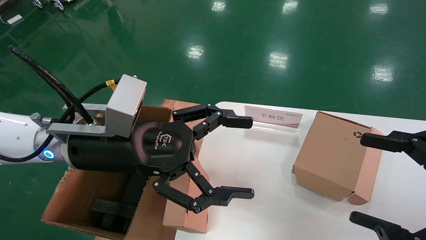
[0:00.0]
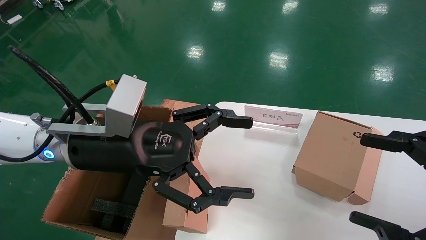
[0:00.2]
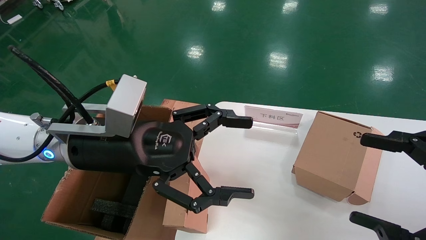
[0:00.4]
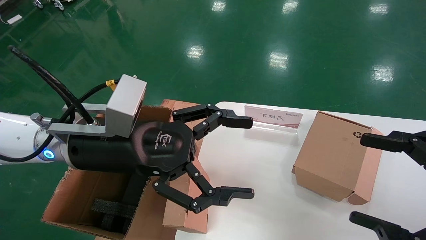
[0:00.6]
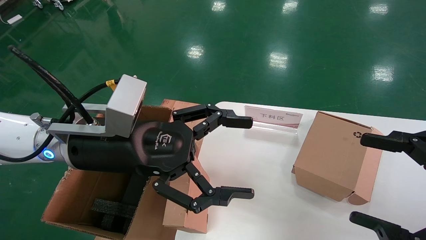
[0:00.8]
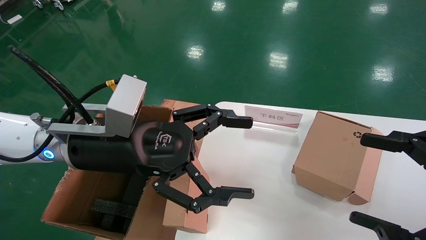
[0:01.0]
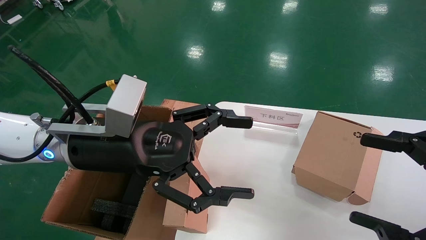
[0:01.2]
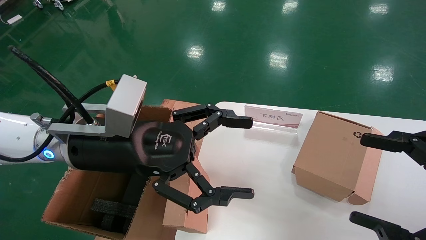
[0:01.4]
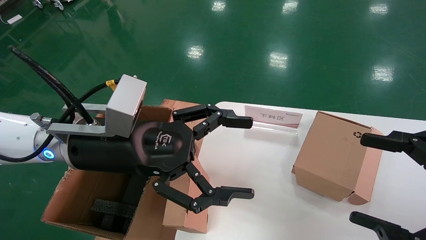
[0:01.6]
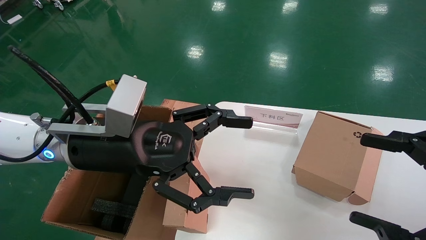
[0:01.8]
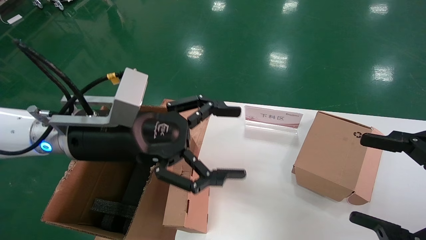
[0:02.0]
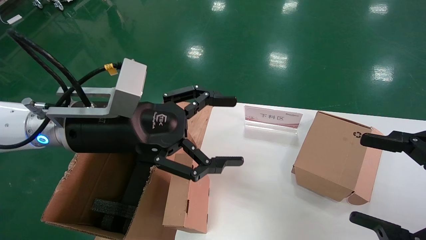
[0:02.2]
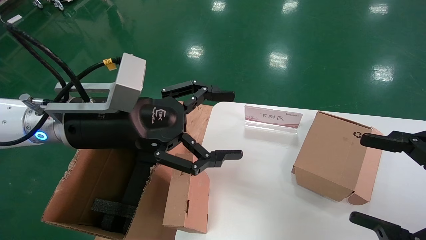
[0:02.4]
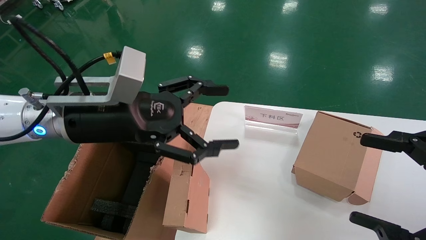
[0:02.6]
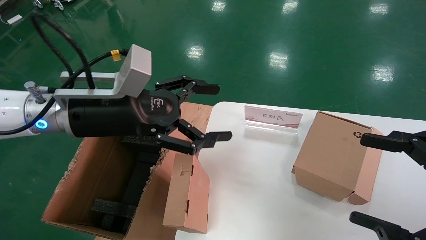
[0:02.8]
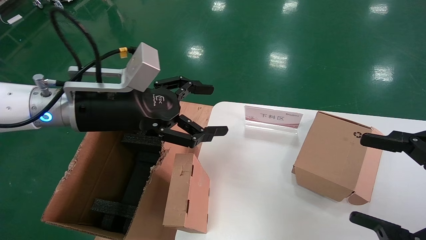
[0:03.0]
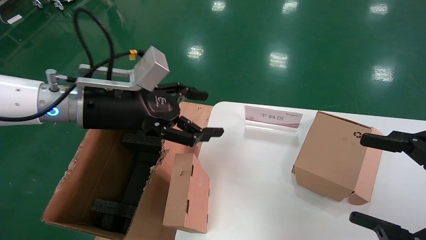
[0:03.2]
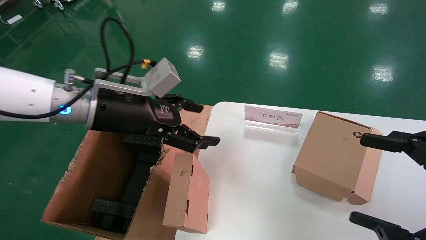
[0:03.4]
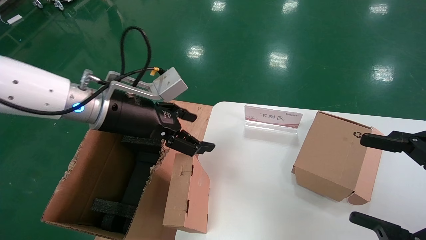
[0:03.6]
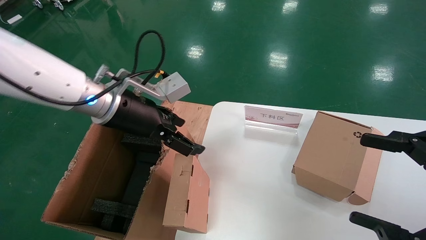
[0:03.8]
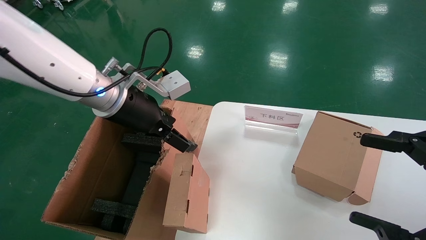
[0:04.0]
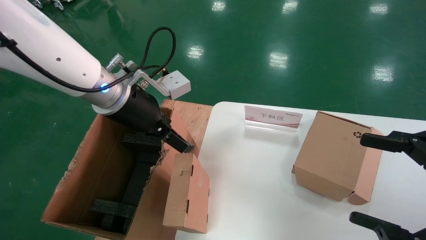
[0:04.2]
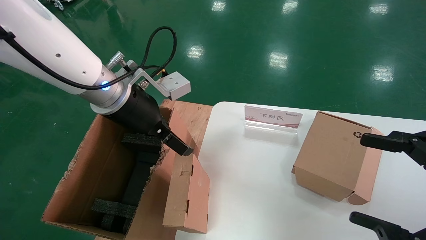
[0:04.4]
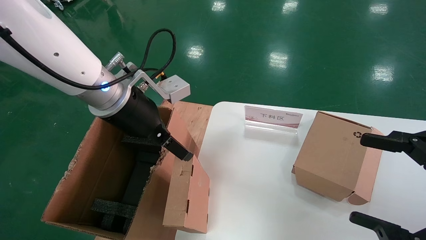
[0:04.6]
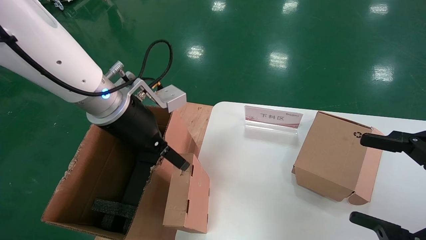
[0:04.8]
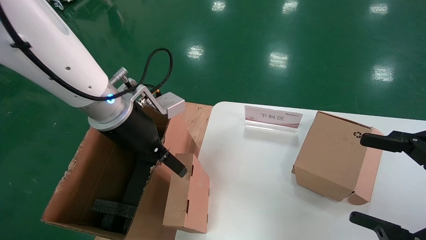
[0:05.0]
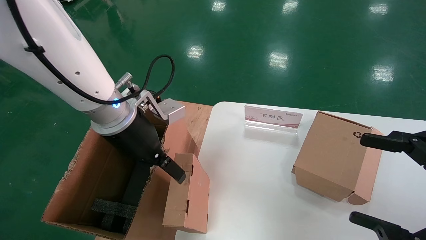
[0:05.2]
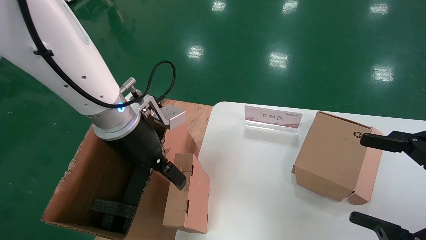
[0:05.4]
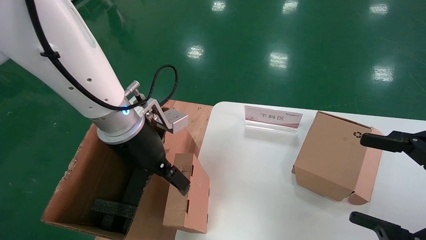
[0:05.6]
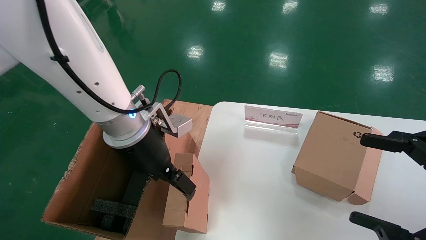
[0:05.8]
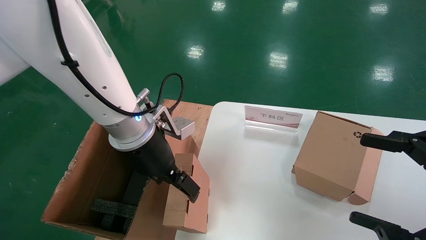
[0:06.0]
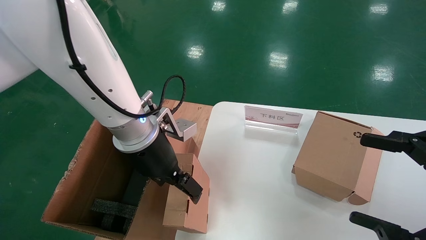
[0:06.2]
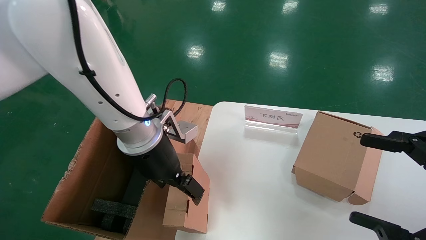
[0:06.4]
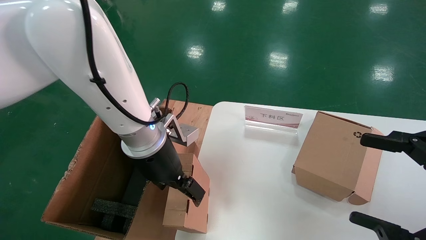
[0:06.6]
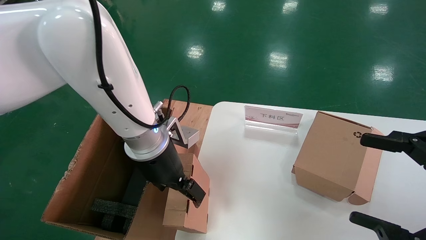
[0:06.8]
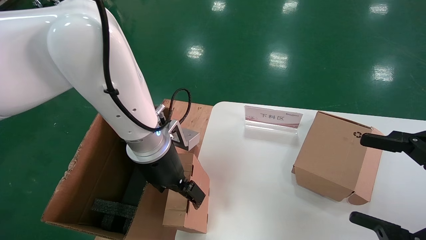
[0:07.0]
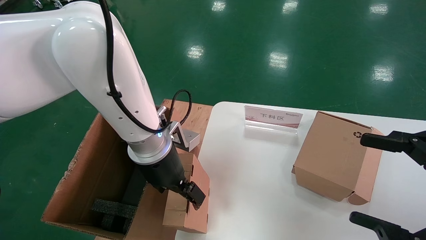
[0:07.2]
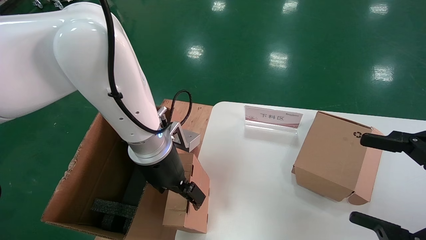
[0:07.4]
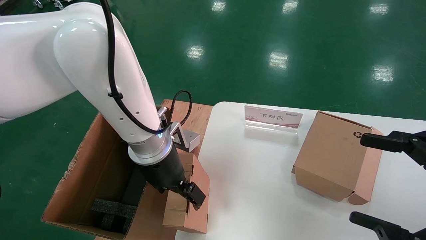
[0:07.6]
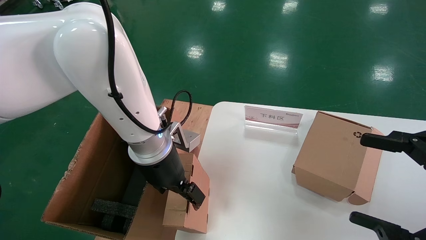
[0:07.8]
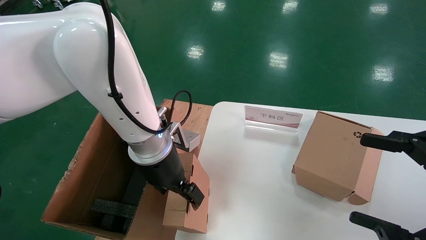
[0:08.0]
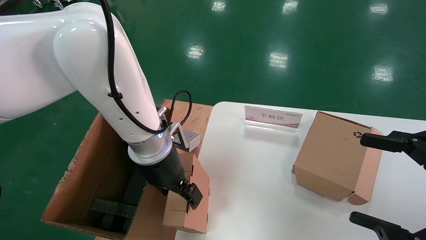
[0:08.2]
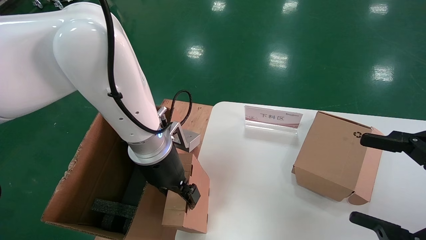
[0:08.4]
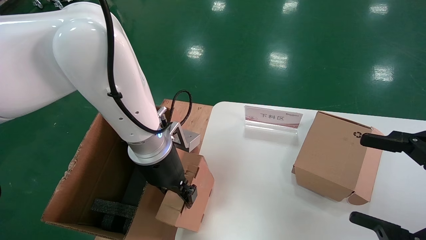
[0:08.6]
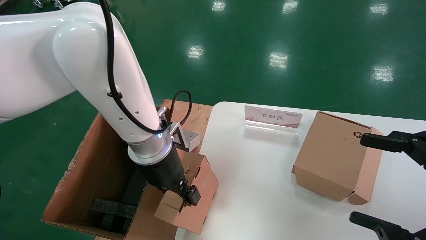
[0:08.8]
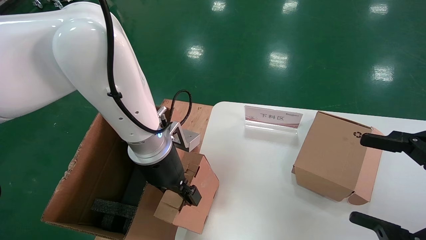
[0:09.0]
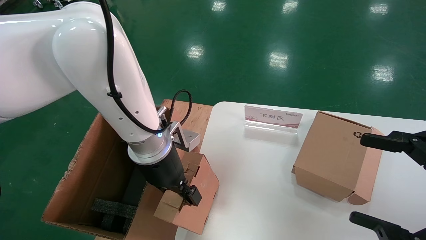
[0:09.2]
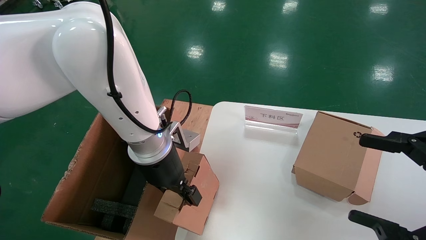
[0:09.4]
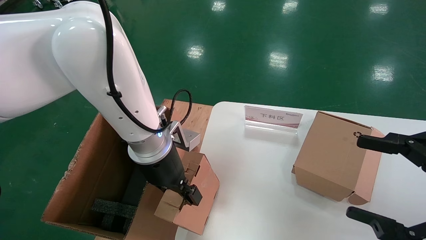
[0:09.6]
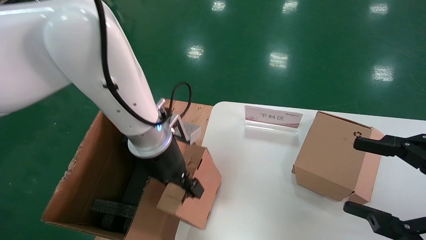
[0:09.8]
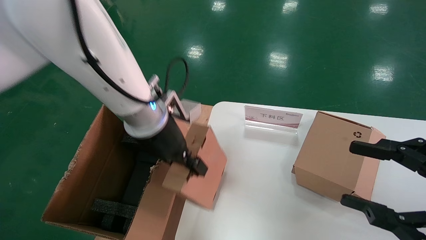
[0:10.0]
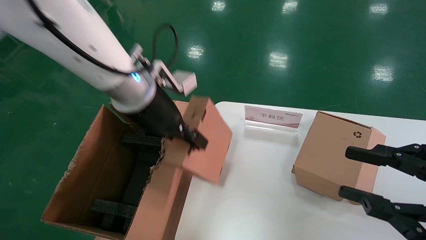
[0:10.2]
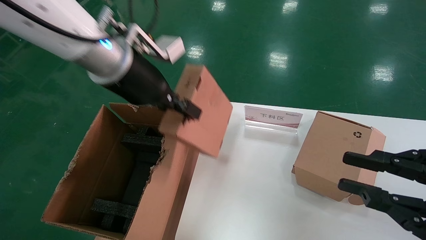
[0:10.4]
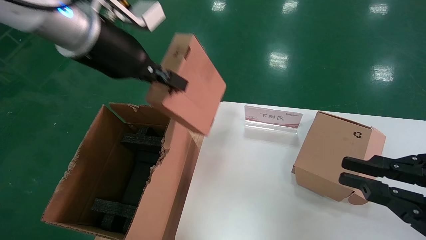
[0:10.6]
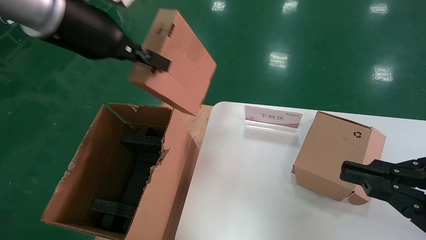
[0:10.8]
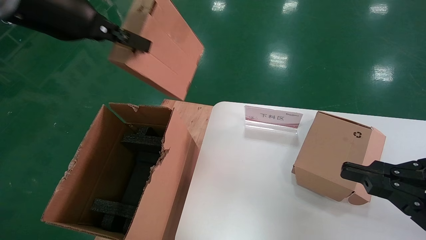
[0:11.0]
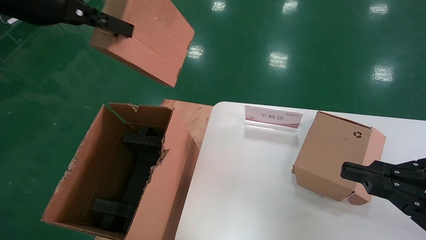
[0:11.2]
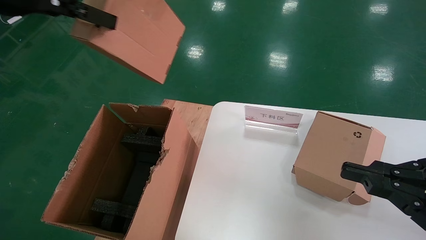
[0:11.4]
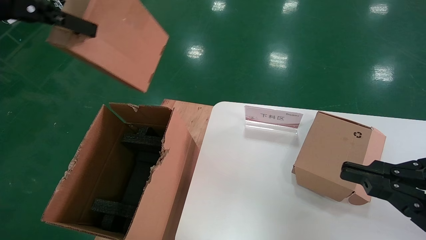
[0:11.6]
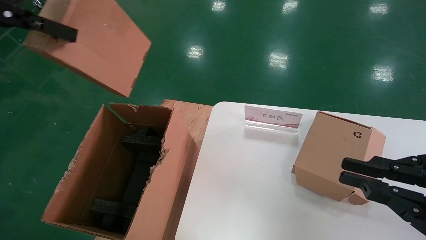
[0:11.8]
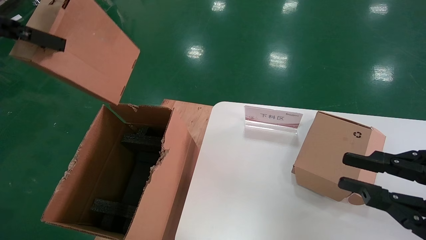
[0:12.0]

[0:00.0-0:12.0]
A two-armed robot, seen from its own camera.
Task of the whole recording: put the box on the table into the big box.
Step, 0:00.0 to 0:08.8: Grasp the paper box.
0:00.0 to 0:01.6: Neither gripper changes place.
0:01.6 to 0:03.0: The left gripper moves approximately 5 cm.
0:03.0 to 0:04.4: The left gripper shifts by approximately 5 cm.
0:04.4 to 0:06.0: The left gripper is displaced downward by roughly 5 cm.
0:06.0 to 0:07.6: There are only small adjustments of the grippers.
0:07.6 to 0:09.0: The left gripper closes up.
0:09.0 to 0:10.4: The left gripper is displaced upward by about 15 cm, while the right gripper closes its fingers.
0:10.4 to 0:12.0: The left gripper shifts some 20 cm to the left, backward and upward.

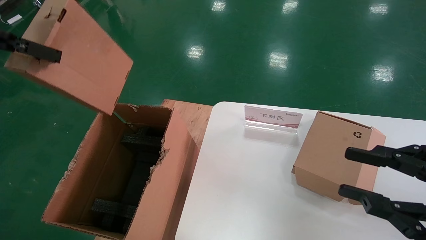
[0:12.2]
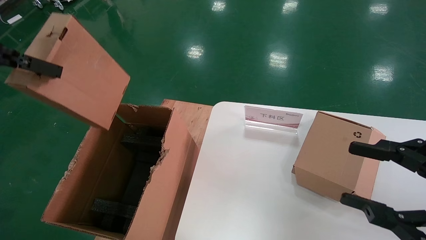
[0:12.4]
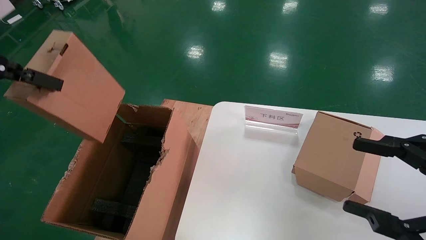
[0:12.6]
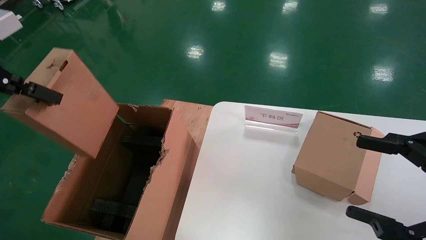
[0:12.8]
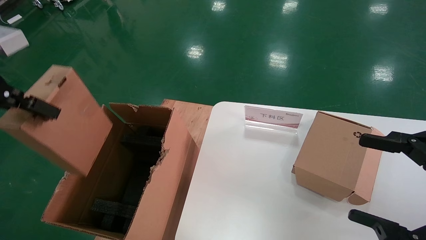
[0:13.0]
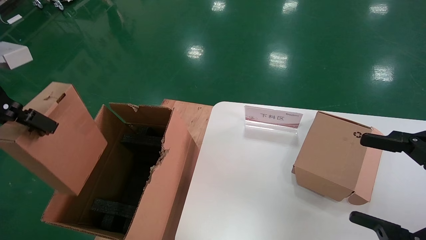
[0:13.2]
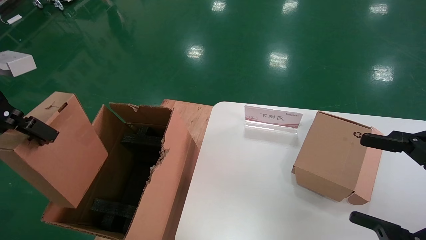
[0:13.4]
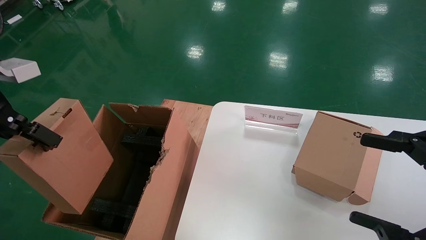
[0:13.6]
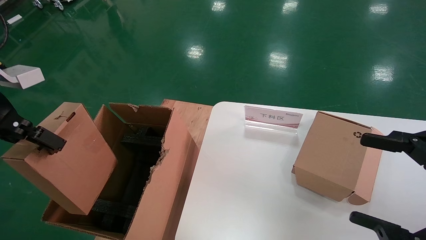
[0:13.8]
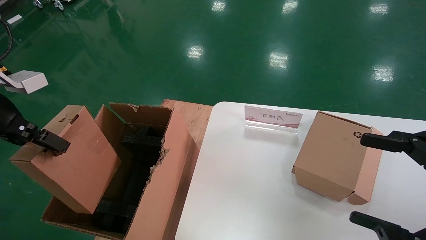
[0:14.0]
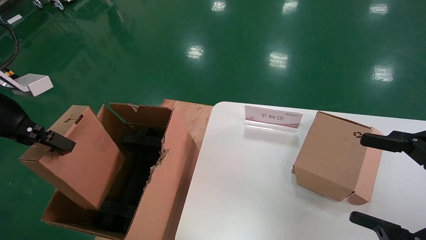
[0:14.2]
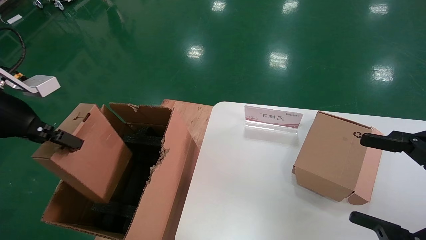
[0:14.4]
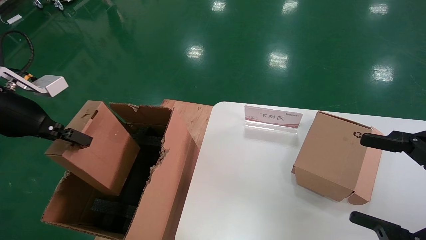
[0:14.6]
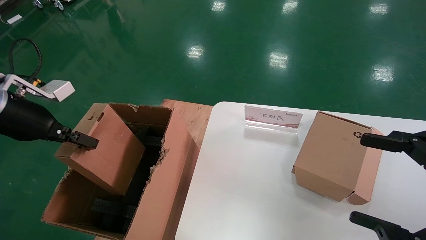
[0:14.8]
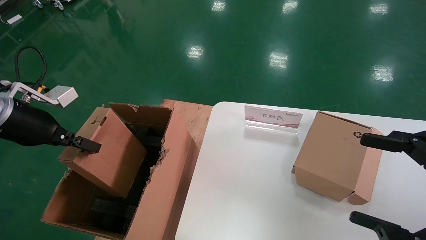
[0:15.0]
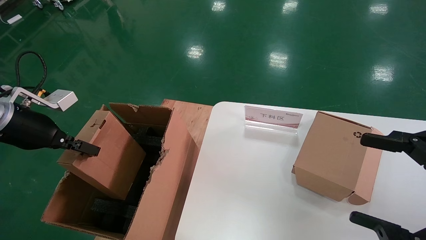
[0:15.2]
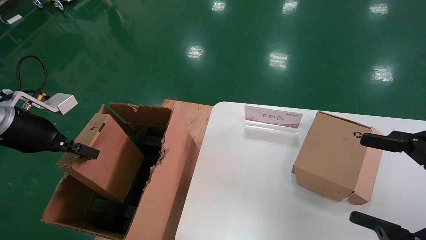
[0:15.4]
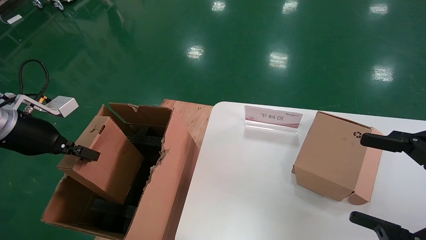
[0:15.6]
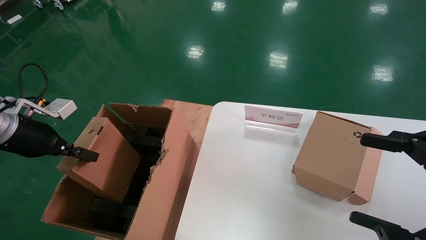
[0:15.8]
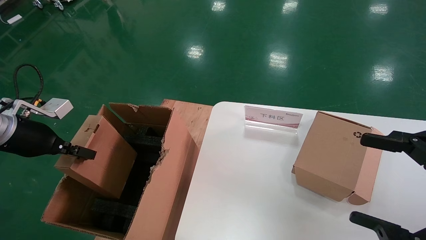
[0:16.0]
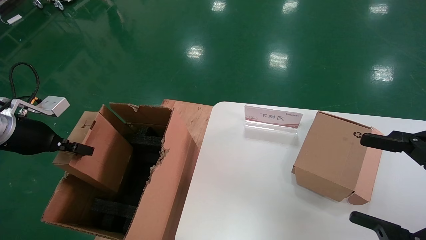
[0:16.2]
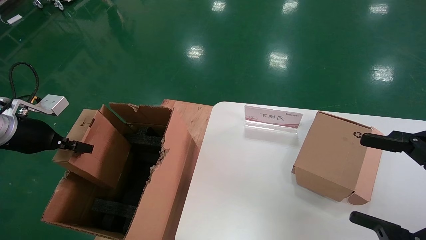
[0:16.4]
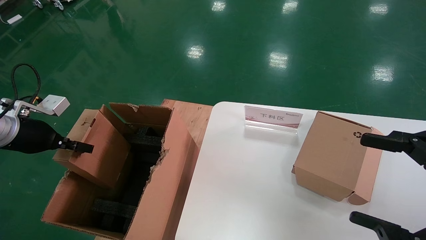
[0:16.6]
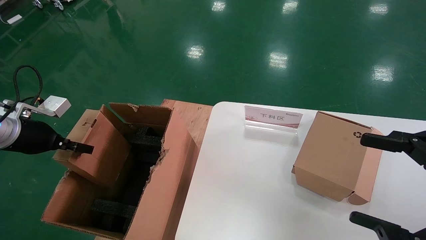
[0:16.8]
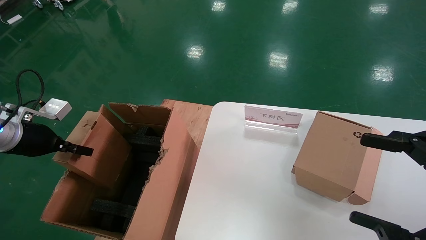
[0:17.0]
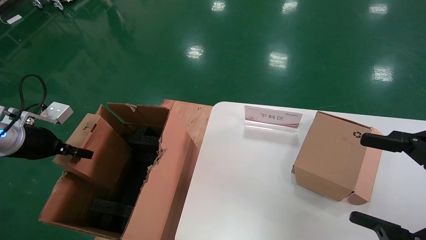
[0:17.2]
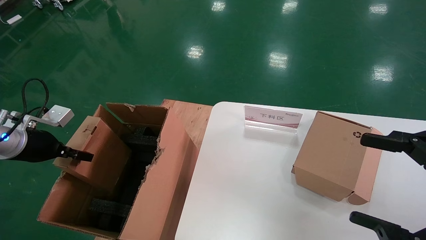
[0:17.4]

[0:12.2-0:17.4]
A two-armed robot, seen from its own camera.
Task of the whole recording: put the box on the table into the big box.
0:12.2 to 0:14.0: The left gripper is displaced downward by approximately 10 cm; the right gripper opens up.
0:14.0 to 0:15.6: The left gripper shifts approximately 10 cm downward and forward.
0:15.6 to 0:17.4: The left gripper moves downward, approximately 5 cm.
